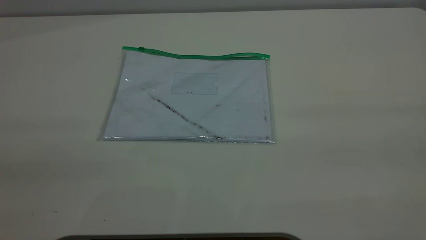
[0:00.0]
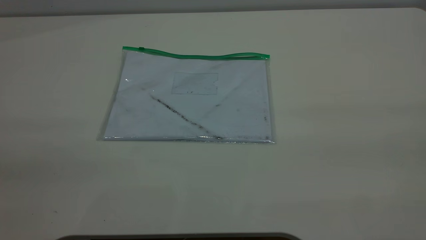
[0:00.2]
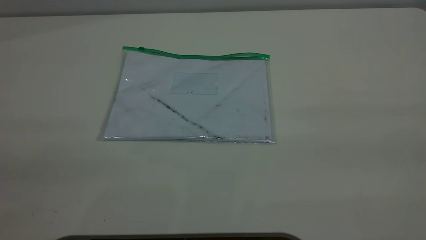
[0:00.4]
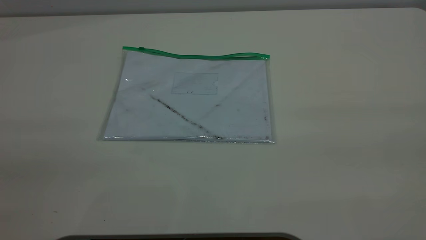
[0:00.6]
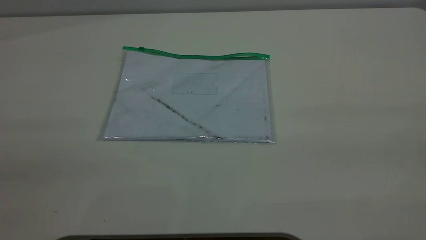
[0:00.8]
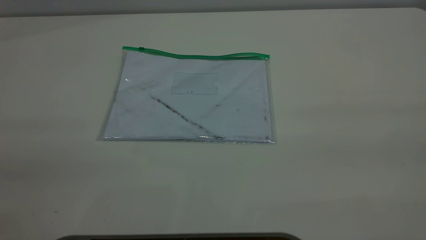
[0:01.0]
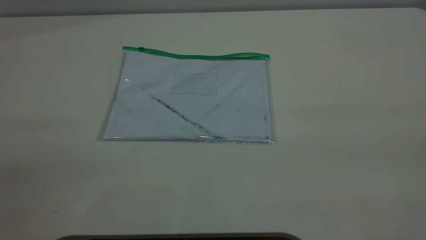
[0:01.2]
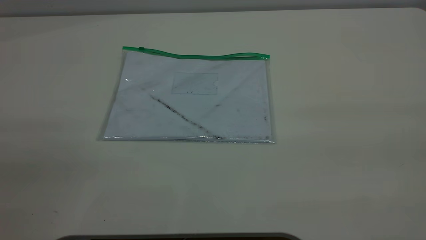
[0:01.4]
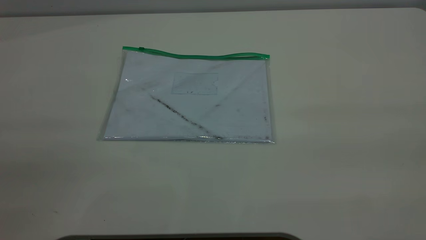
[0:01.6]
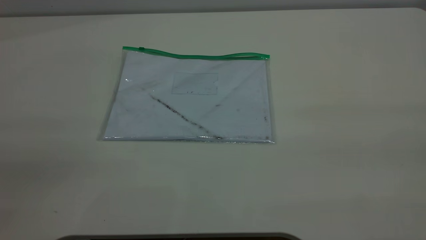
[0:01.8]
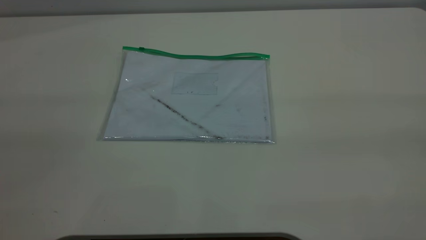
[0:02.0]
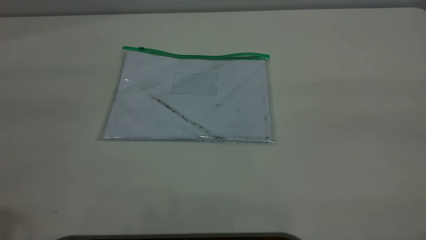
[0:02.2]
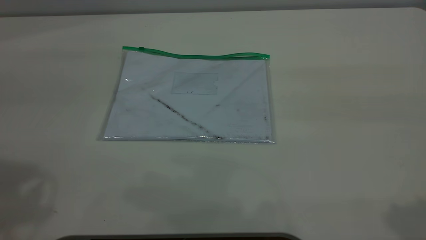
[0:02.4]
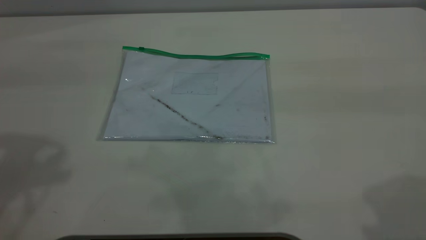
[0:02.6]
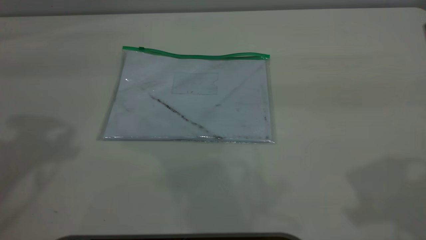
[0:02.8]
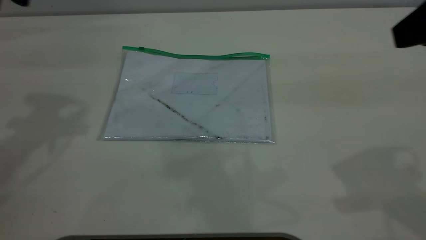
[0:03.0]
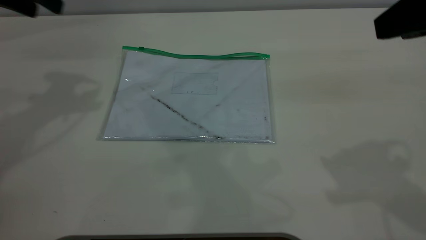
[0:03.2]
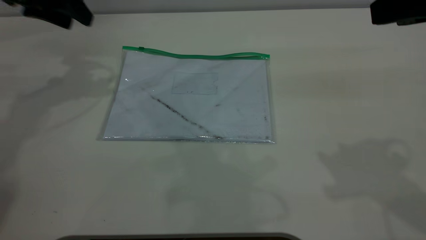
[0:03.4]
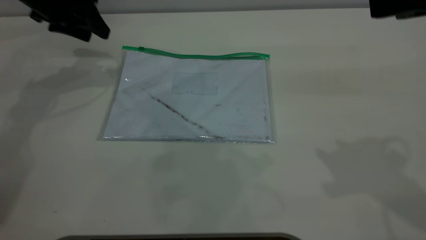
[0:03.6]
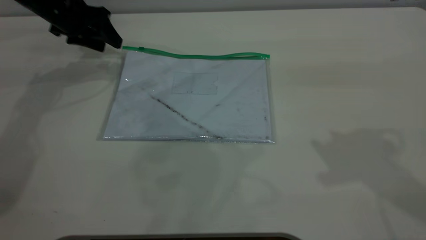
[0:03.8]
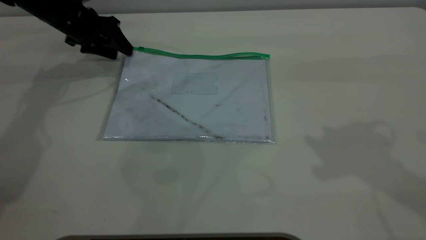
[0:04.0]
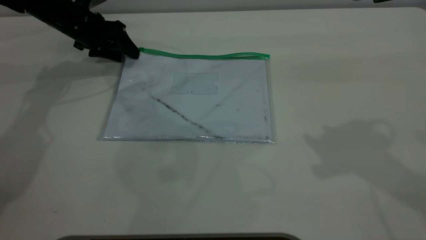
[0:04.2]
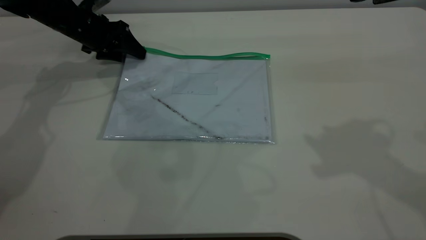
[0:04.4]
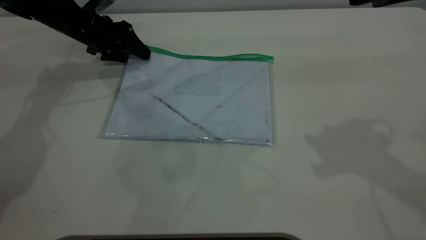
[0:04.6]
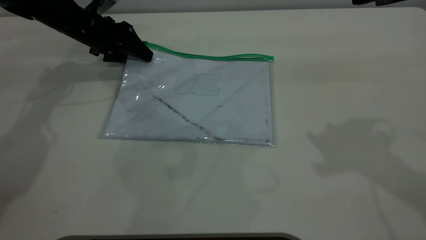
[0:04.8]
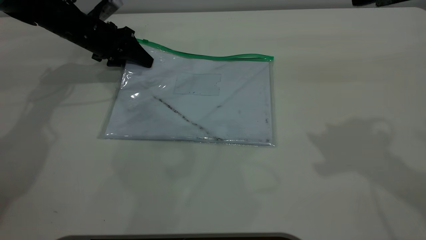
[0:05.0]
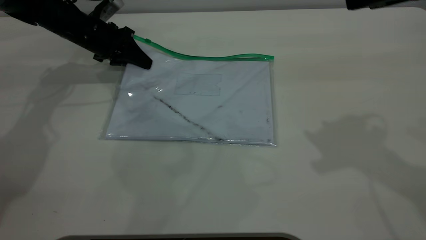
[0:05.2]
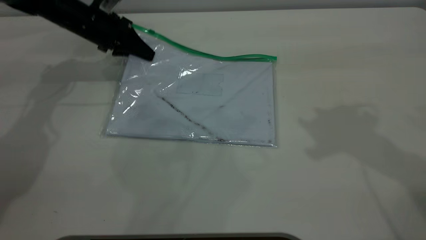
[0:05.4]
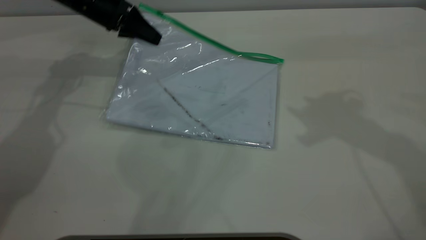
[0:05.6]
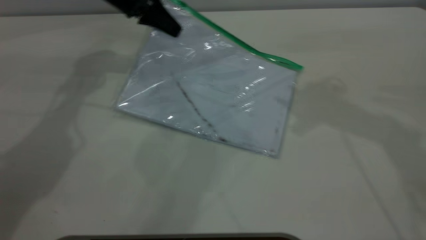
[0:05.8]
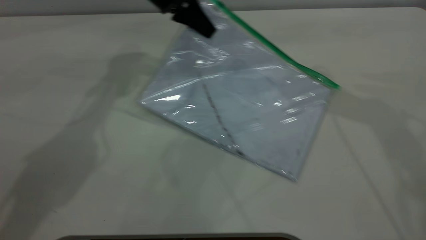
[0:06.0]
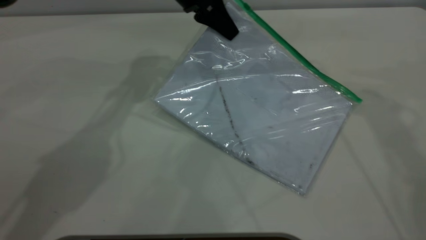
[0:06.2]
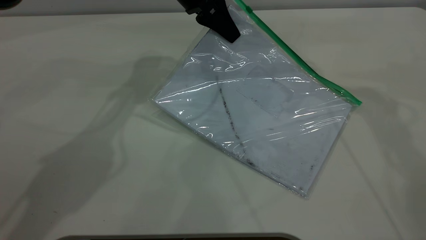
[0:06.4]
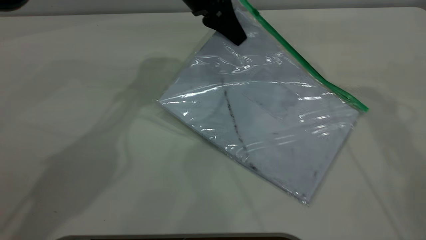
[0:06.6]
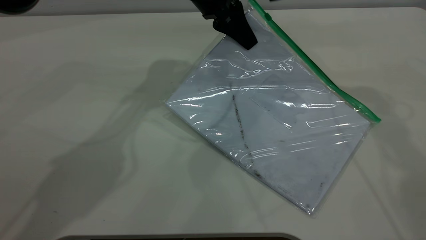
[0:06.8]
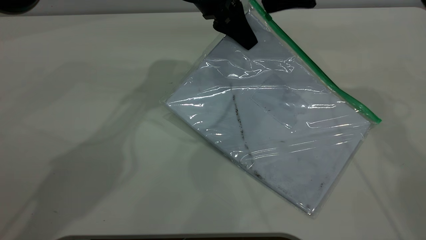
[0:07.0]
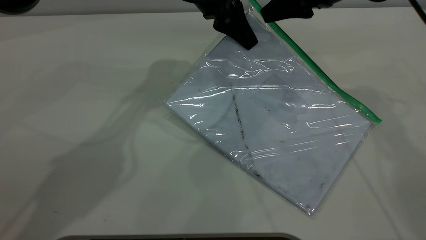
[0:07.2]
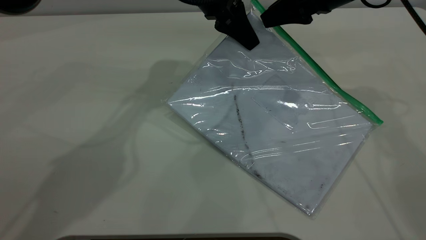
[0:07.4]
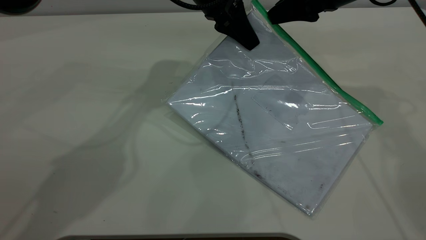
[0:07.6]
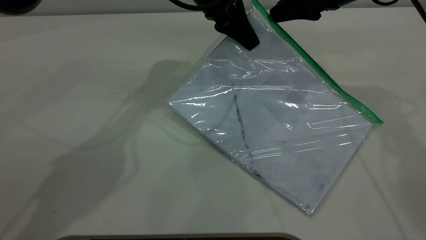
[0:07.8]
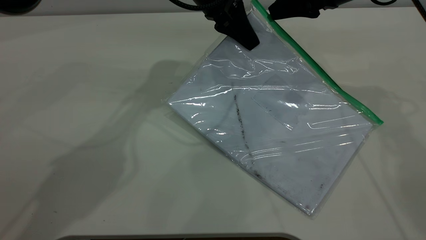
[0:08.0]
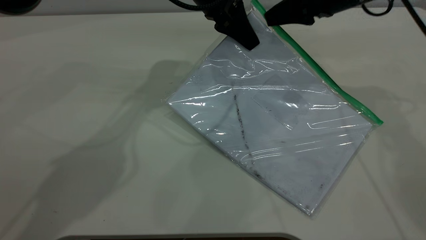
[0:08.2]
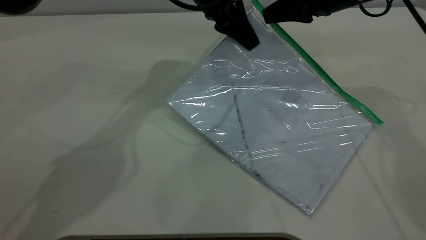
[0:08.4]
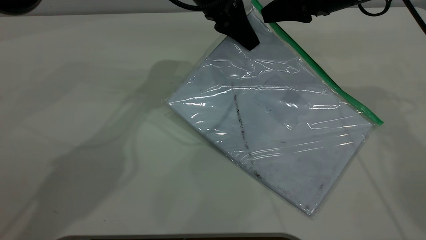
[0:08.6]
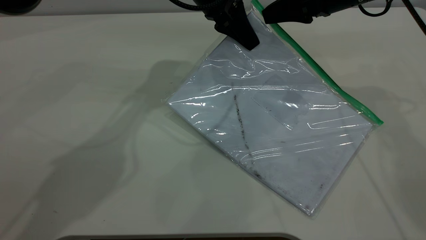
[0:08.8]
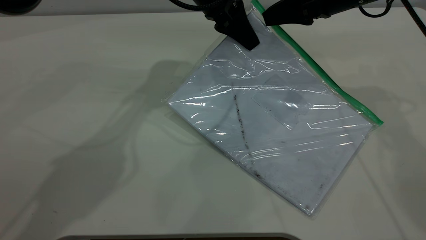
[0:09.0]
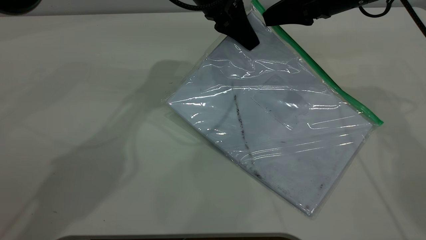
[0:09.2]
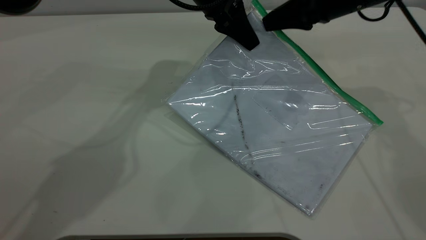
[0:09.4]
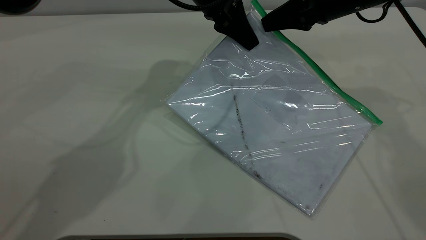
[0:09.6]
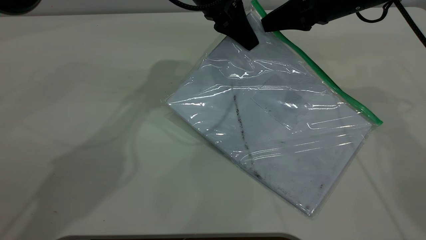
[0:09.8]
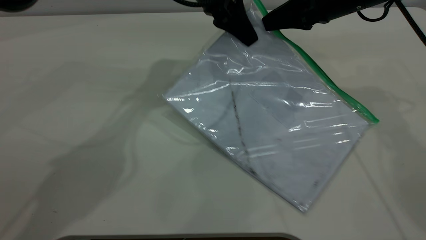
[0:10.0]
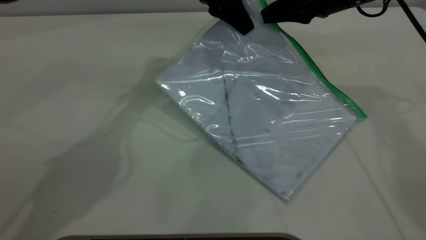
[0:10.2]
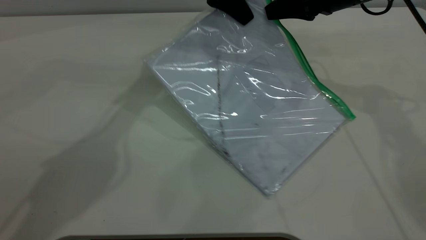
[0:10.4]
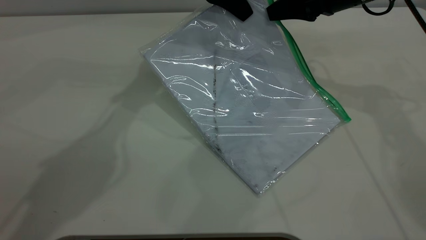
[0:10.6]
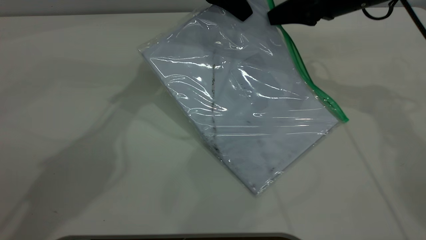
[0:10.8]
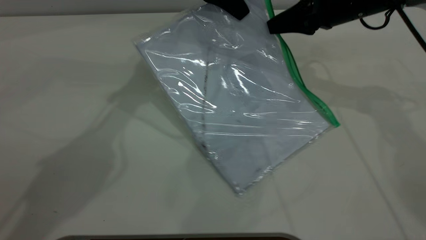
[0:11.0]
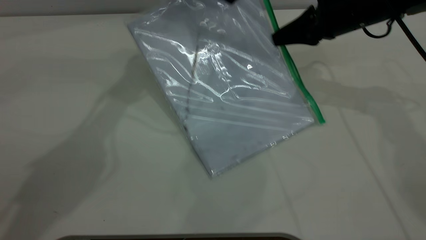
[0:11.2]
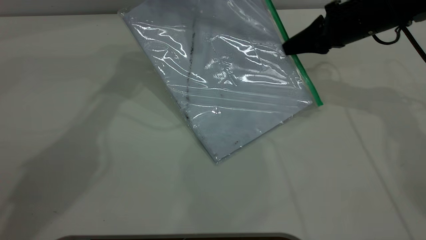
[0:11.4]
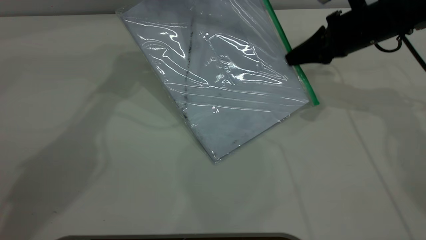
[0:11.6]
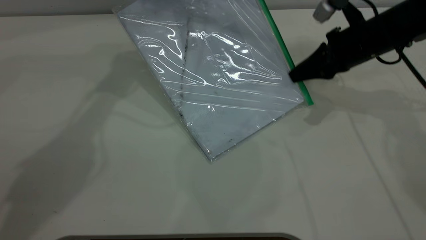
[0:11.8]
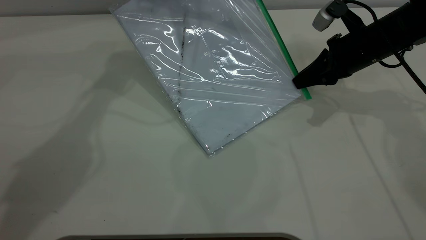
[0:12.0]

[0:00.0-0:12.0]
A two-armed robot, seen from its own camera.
Step, 0:00.0 to 0:05.4: Pick up the transparent plastic bag with the left gripper.
0:00.0 to 0:01.6: The two grippers keep their place.
0:01.6 to 0:03.0: The right gripper moves forward, roughly 20 cm.
0:03.0 to 0:04.4: The left gripper shifts approximately 30 cm downward and forward; the right gripper shifts by roughly 5 cm.
0:04.4 to 0:06.0: The right gripper moves forward, some 15 cm. The left gripper heads to the right and upward, covering about 20 cm, and closes up.
0:06.0 to 0:07.6: The left gripper goes some 5 cm to the right, while the right gripper travels downward by roughly 10 cm.
0:07.6 to 0:09.0: The right gripper closes.
0:09.0 to 0:10.4: The grippers make only small movements.
0:10.4 to 0:12.0: The left gripper shifts some 5 cm to the left. Meanwhile the right gripper shifts some 10 cm downward.

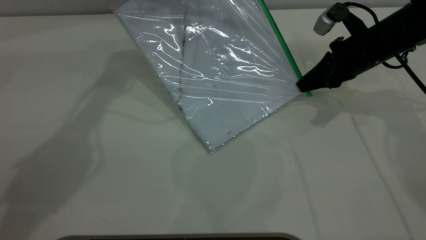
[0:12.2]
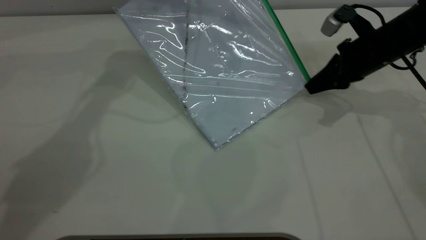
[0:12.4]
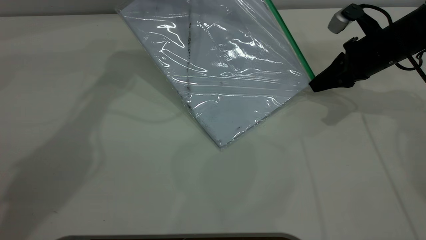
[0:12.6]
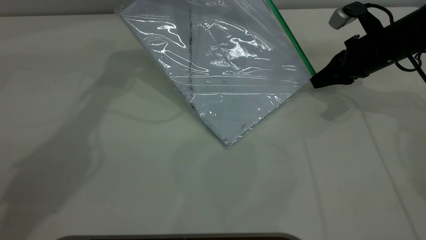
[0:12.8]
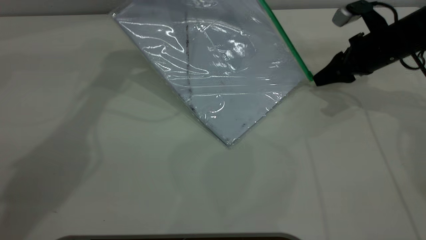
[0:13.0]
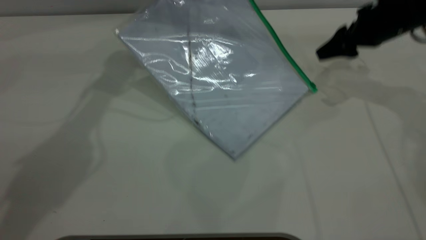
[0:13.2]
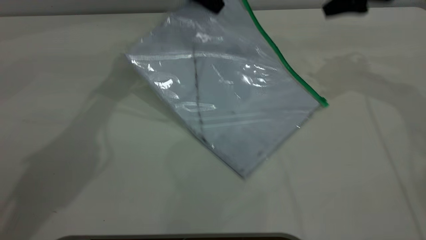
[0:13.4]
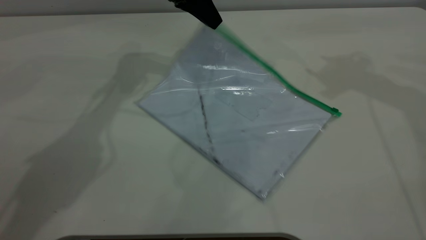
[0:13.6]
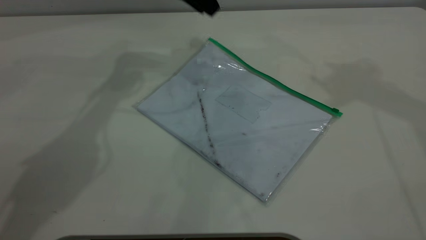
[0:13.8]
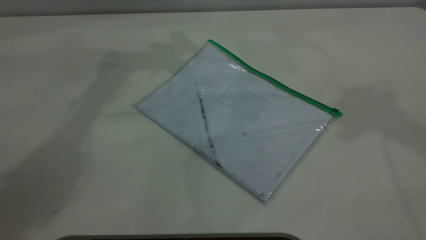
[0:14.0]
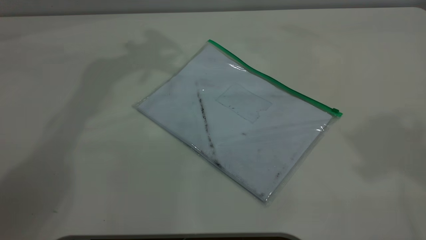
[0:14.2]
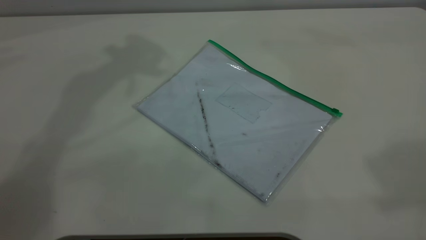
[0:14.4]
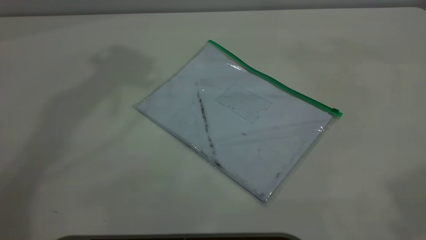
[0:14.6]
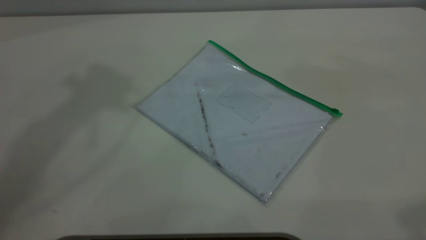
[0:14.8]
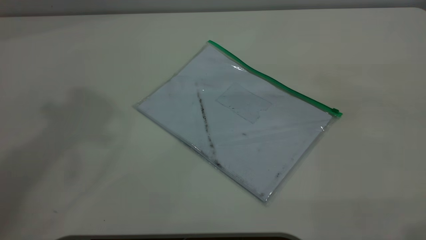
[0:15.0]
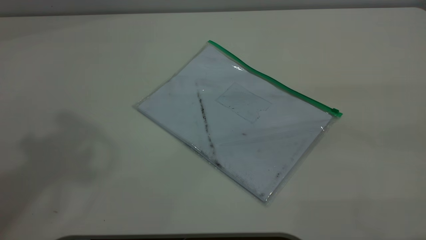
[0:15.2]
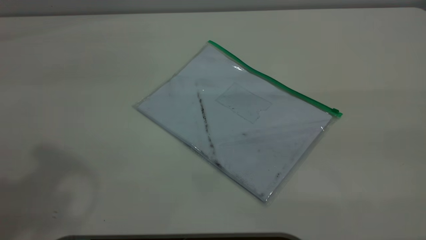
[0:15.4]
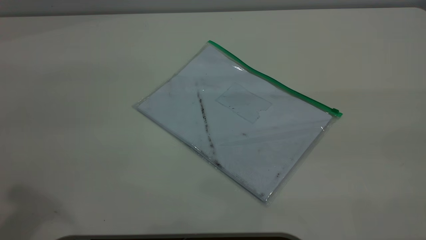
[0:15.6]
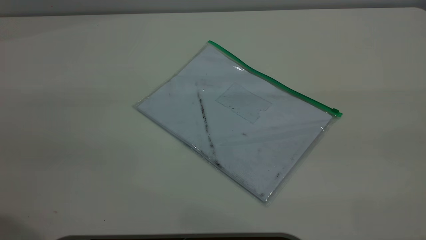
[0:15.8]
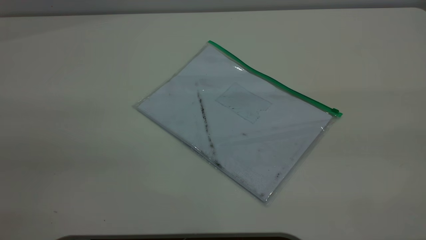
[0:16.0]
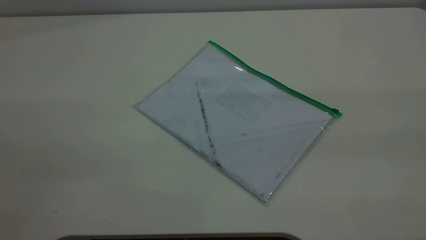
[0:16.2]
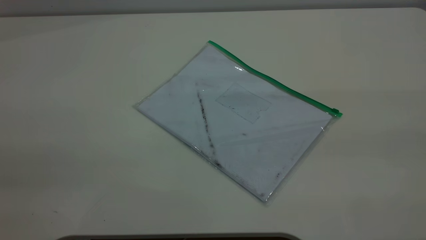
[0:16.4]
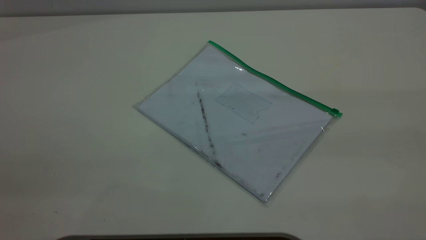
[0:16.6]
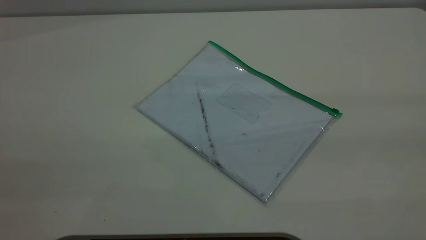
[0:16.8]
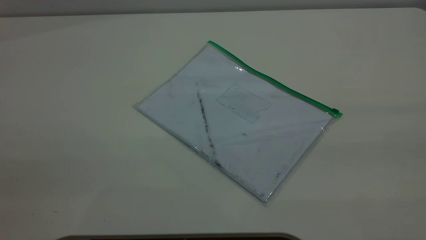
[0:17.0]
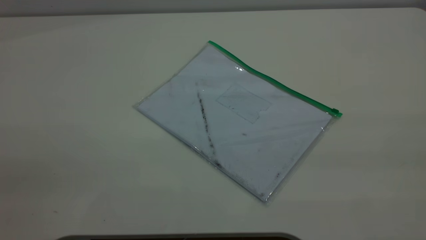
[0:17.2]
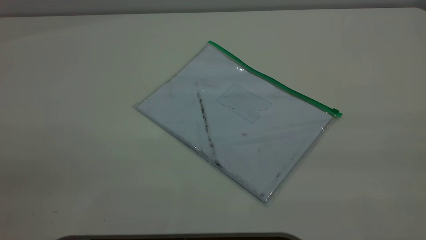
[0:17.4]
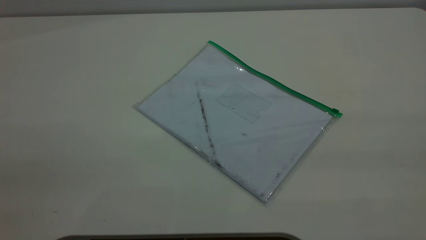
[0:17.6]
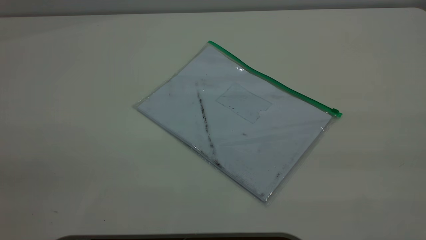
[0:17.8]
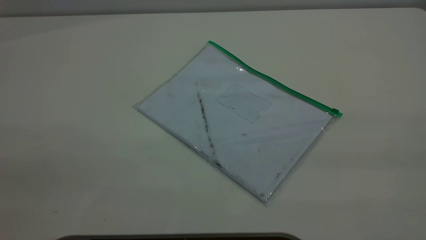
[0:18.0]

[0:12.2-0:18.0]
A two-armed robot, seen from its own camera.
Step, 0:13.2 to 0:13.6: Place the transparent plastic bag.
0:12.2 to 0:13.6: The left gripper moves downward, about 5 cm, and opens up, while the right gripper moves upward, about 20 cm, and opens its fingers.
0:13.6 to 0:15.0: The left gripper shifts roughly 40 cm upward and backward, while the right gripper goes about 35 cm backward.
